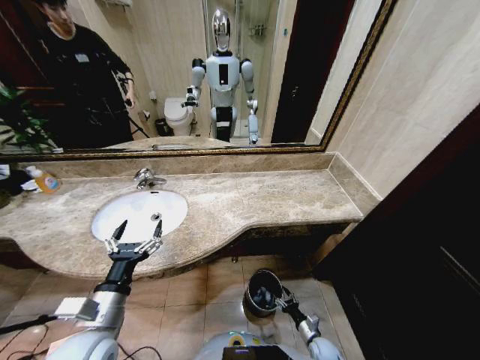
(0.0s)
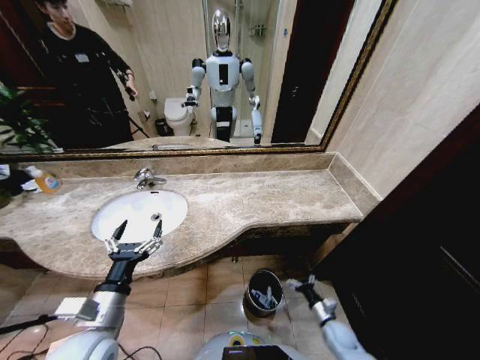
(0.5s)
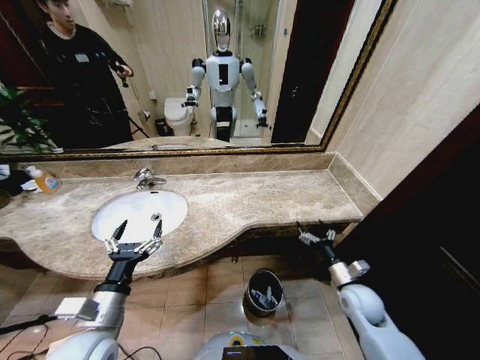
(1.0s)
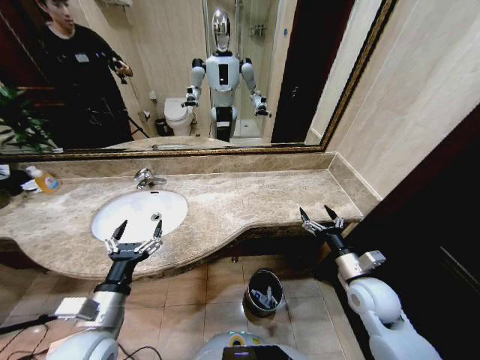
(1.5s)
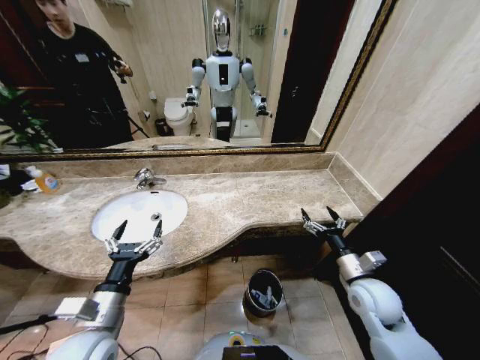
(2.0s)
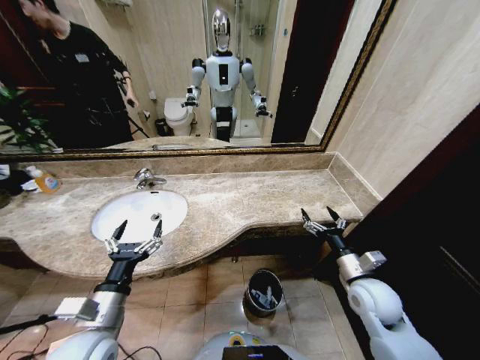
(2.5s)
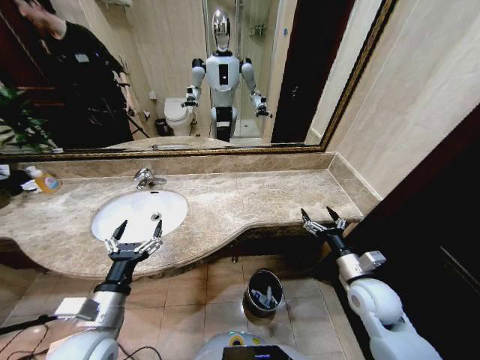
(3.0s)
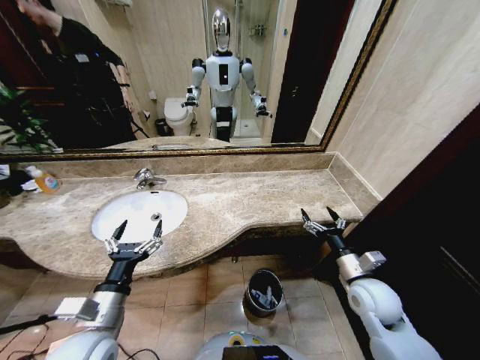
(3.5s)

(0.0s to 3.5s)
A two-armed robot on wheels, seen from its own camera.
Task of the whole recording: Pick up the trash from the sink and place it in the trash bin.
0.0s - 2.0s: The right gripper is displaced upward by roughly 40 cm, and opens.
2.0s - 3.5s: Both grippers stay about where they are.
